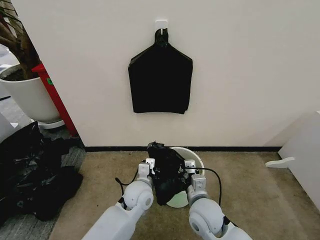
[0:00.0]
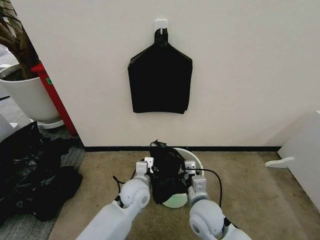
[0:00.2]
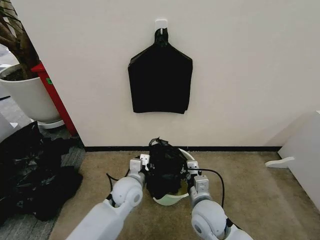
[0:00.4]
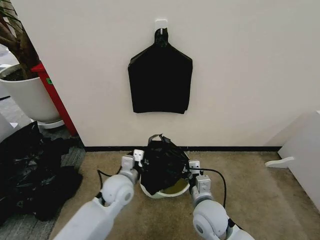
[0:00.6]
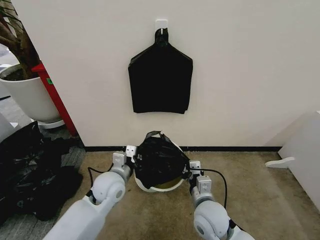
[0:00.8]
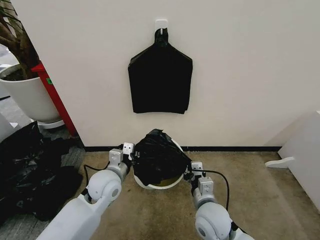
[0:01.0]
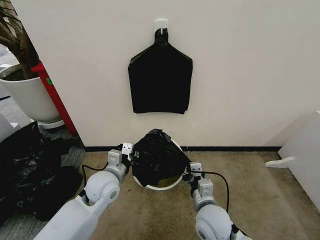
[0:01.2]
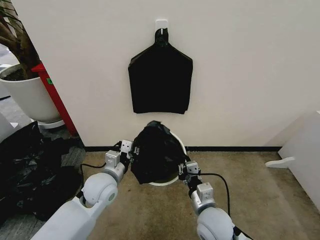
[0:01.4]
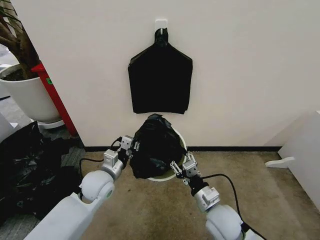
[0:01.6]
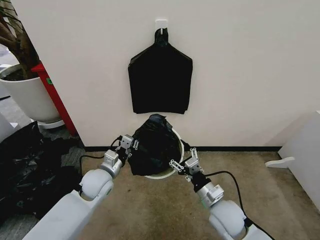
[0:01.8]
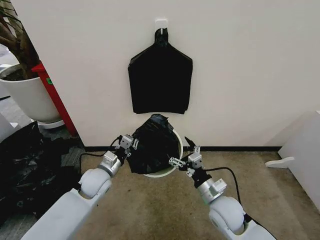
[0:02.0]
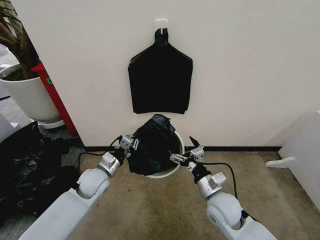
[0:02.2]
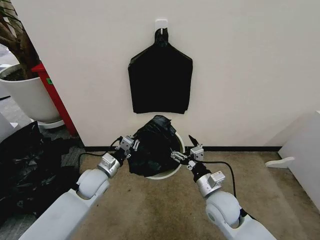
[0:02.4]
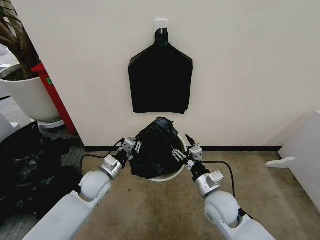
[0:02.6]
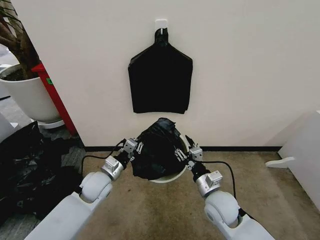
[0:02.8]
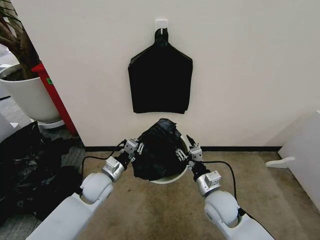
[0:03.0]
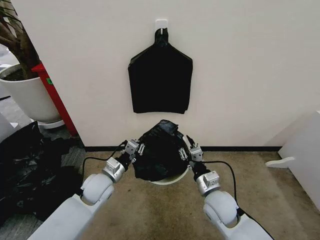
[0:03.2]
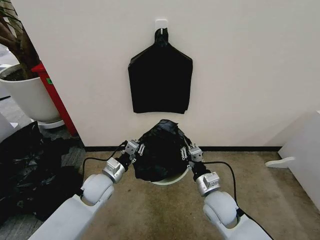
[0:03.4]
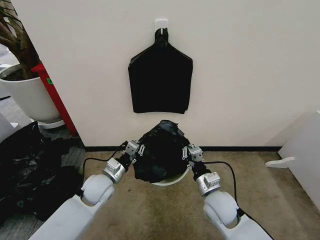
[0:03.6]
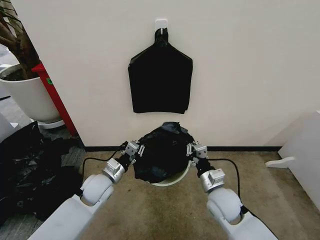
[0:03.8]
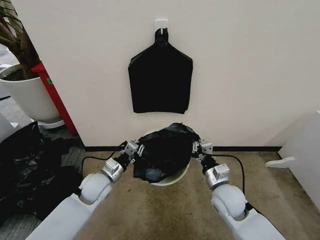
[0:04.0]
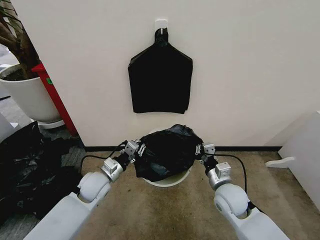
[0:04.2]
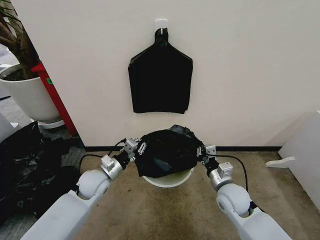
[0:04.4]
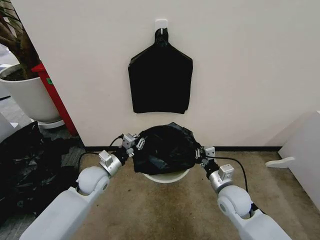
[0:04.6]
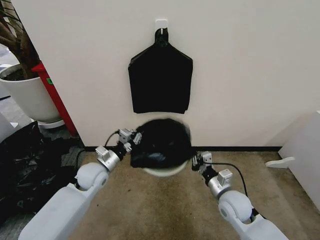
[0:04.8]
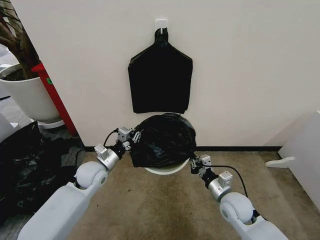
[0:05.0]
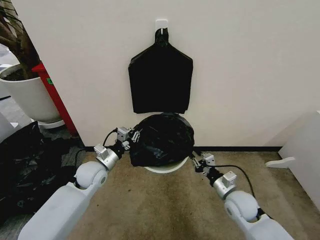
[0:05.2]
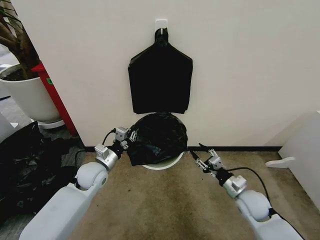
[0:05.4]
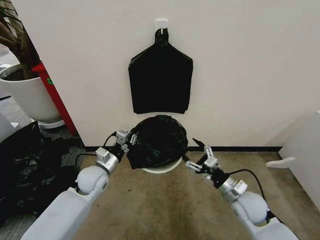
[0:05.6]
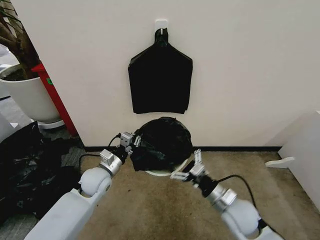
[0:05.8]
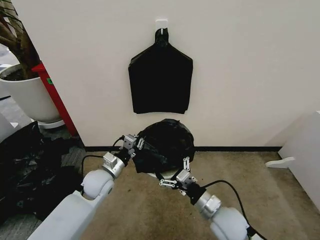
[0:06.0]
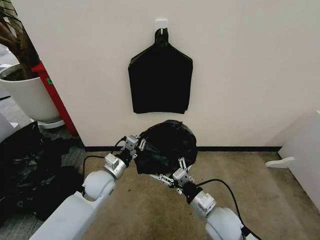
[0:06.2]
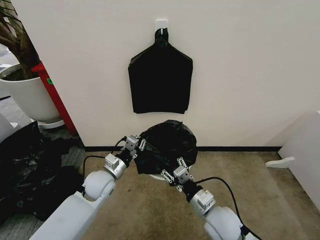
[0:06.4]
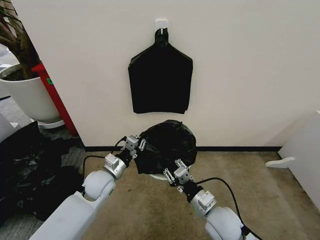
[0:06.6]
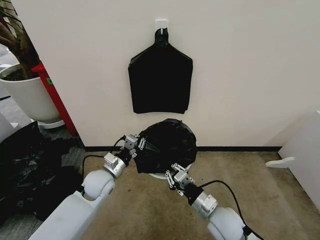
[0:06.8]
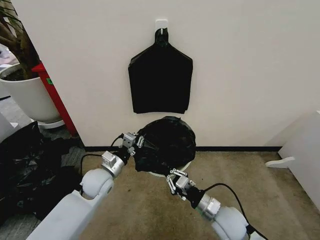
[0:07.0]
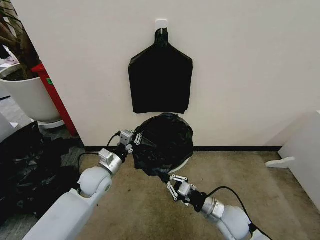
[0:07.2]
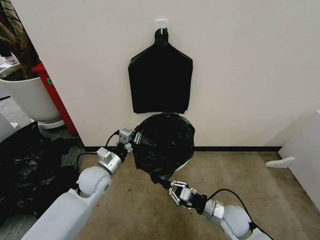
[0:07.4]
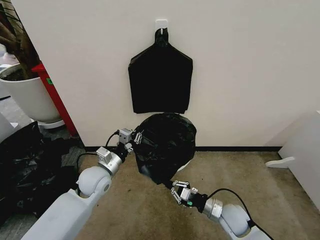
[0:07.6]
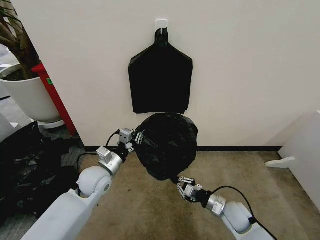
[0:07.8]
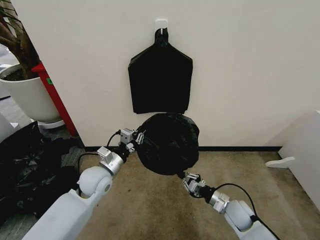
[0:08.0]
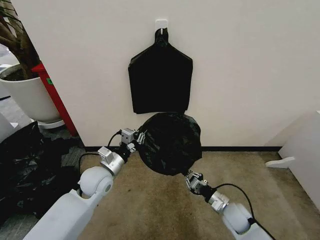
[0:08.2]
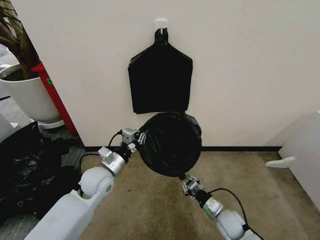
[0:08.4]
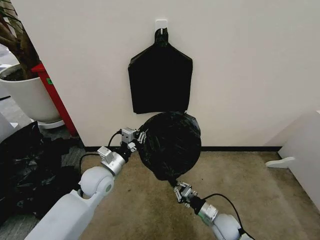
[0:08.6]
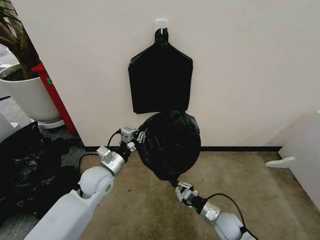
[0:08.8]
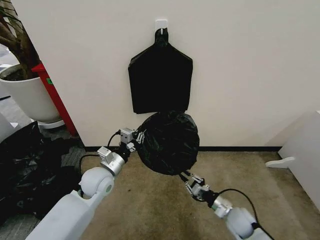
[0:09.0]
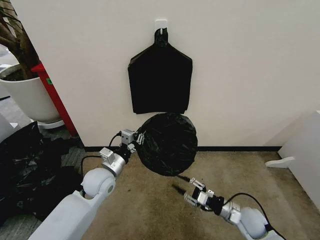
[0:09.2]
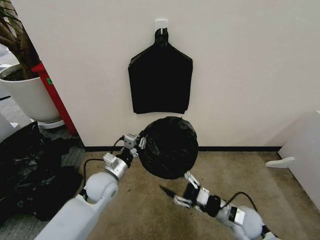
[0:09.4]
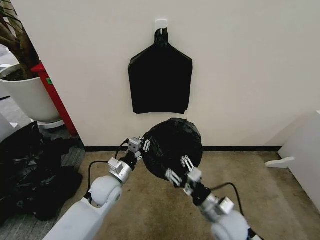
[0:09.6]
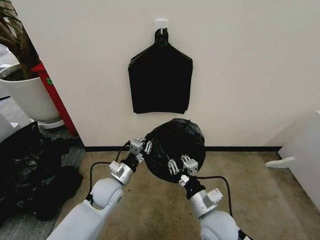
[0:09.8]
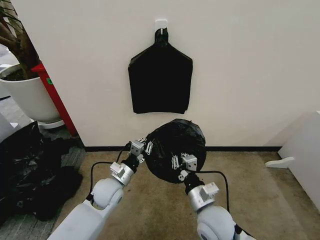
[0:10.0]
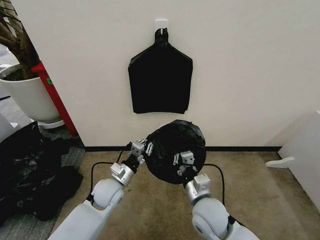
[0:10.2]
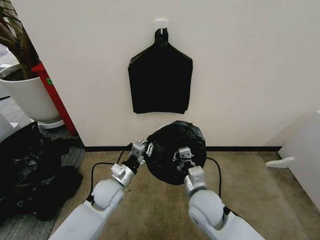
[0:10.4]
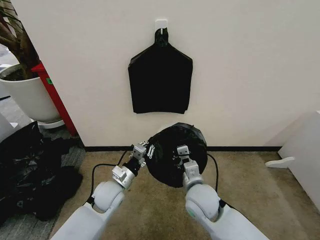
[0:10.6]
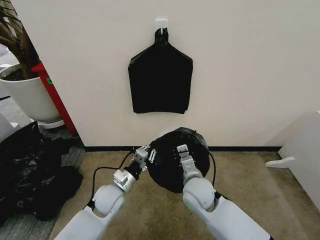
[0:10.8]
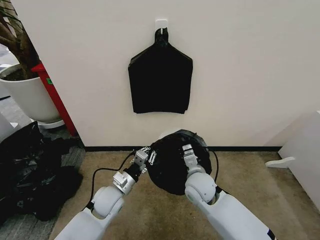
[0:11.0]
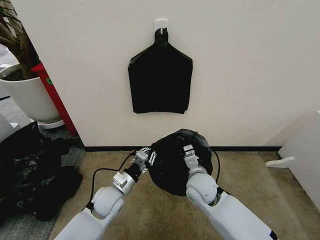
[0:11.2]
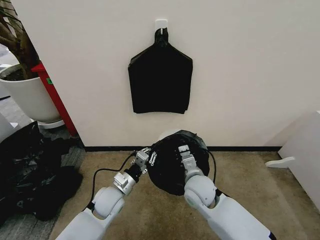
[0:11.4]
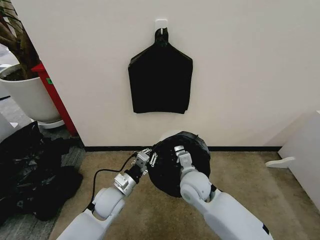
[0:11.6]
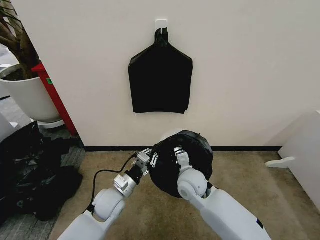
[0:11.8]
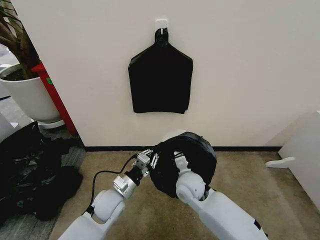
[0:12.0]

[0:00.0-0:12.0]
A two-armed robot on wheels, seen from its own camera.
Task of the whole recording: Place the garbage bag over the trash bin.
0:00.0 to 0:01.6: The right gripper shifts by some 5 cm, and opens. The left gripper goes roughly 15 cm to the left and upward.
0:01.6 to 0:03.0: The right gripper opens, then closes again.
0:03.0 to 0:04.4: The right gripper goes approximately 5 cm to the right, and closes up.
0:04.4 to 0:06.0: The right gripper travels backward by some 5 cm, reaches roughly 10 cm to the right, then returns, and opens up.
0:06.0 to 0:07.6: The right gripper goes roughly 10 cm downward and to the right, and closes.
0:07.6 to 0:09.0: The right gripper changes place by approximately 5 cm.
0:09.0 to 0:10.4: The right gripper is displaced upward and to the left by about 25 cm, and opens, then closes again. The left gripper heads downward, covering roughly 5 cm.
0:10.4 to 0:12.0: The right gripper is displaced forward by about 5 cm.

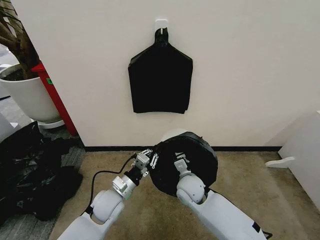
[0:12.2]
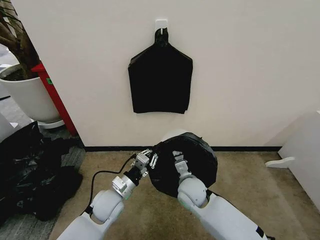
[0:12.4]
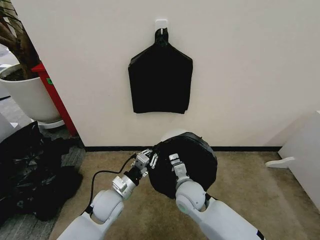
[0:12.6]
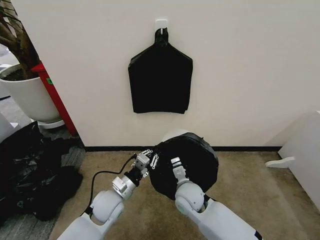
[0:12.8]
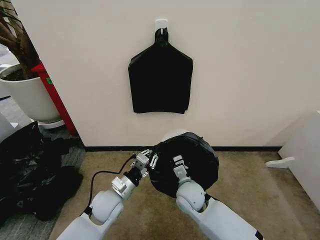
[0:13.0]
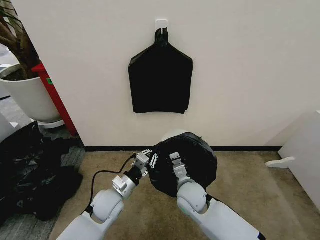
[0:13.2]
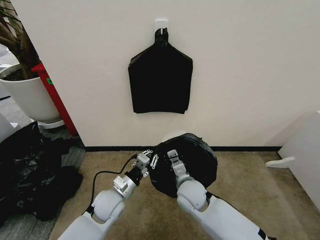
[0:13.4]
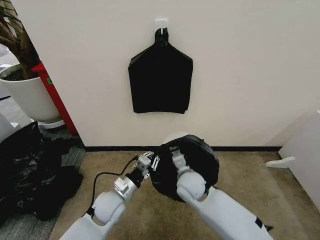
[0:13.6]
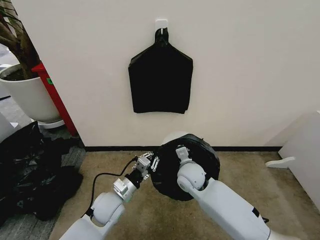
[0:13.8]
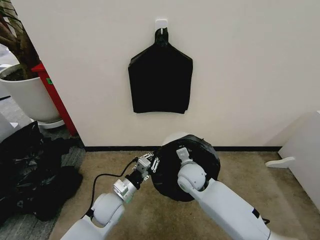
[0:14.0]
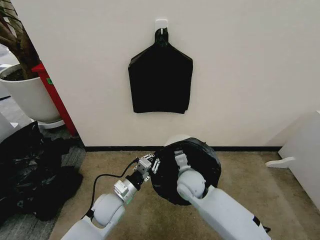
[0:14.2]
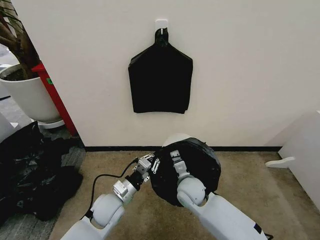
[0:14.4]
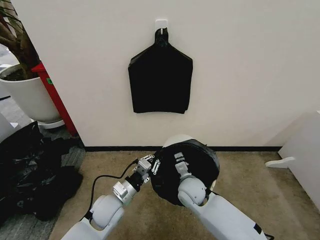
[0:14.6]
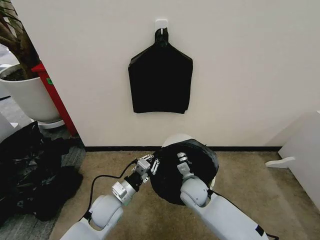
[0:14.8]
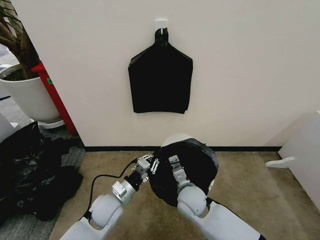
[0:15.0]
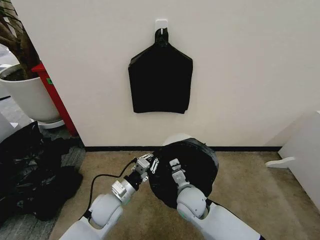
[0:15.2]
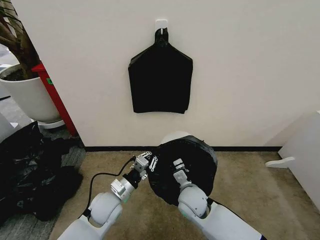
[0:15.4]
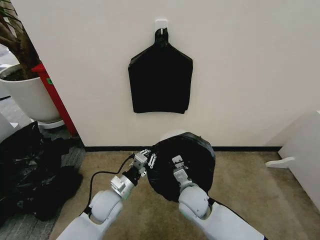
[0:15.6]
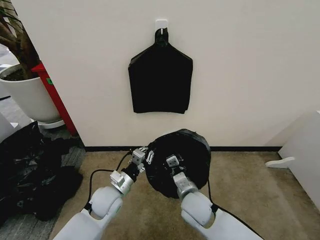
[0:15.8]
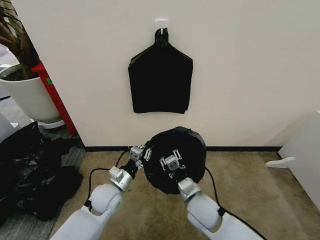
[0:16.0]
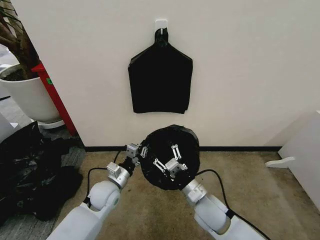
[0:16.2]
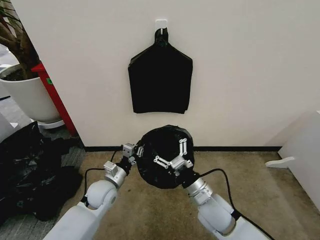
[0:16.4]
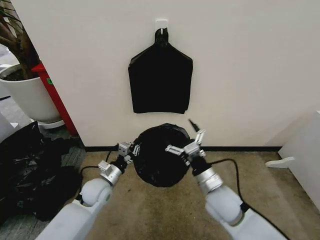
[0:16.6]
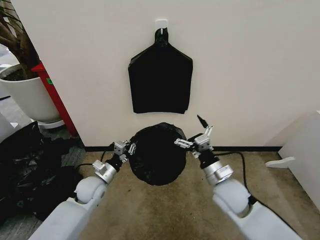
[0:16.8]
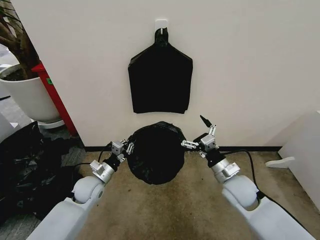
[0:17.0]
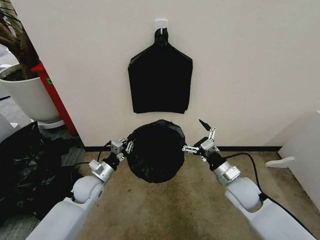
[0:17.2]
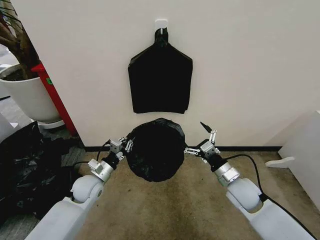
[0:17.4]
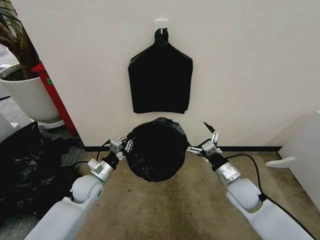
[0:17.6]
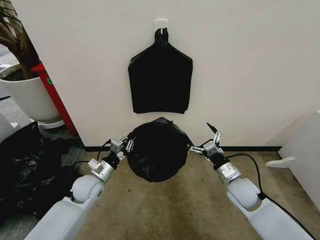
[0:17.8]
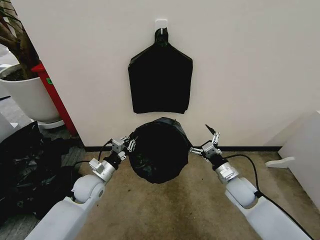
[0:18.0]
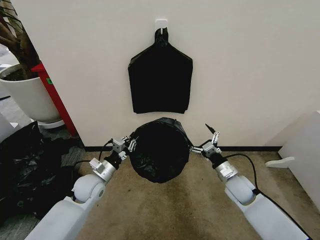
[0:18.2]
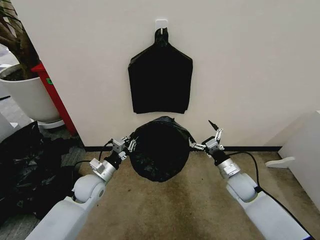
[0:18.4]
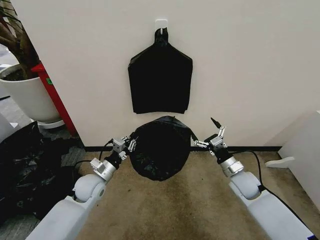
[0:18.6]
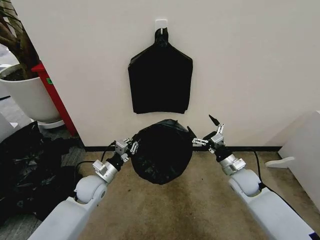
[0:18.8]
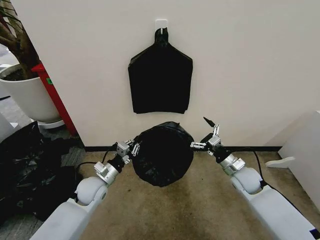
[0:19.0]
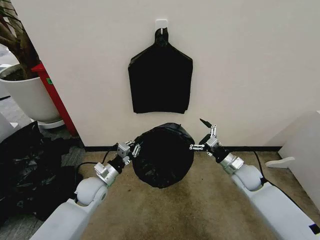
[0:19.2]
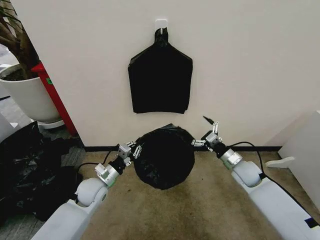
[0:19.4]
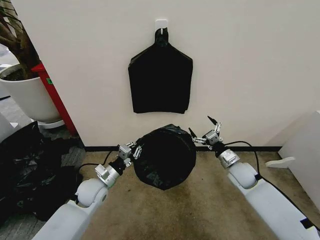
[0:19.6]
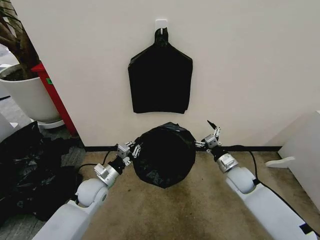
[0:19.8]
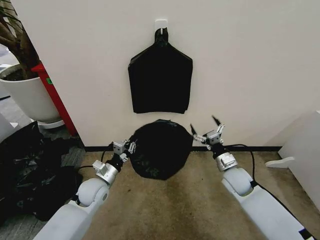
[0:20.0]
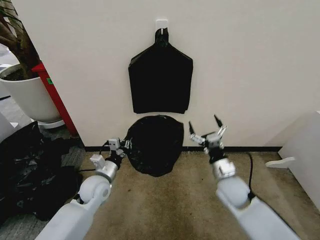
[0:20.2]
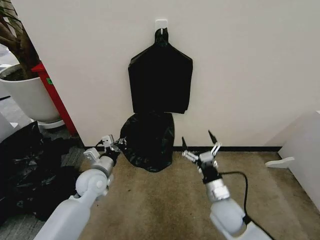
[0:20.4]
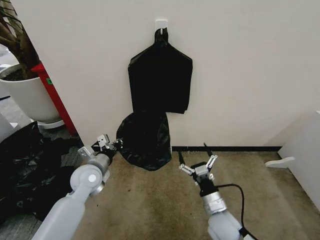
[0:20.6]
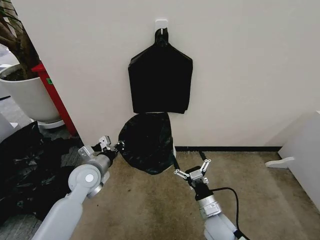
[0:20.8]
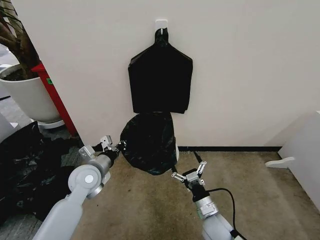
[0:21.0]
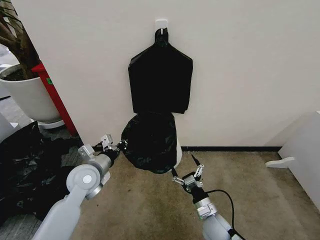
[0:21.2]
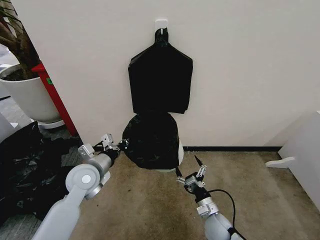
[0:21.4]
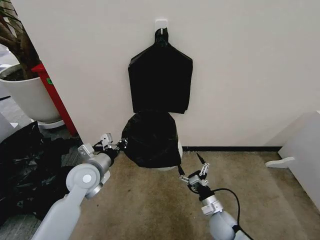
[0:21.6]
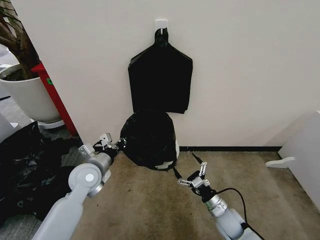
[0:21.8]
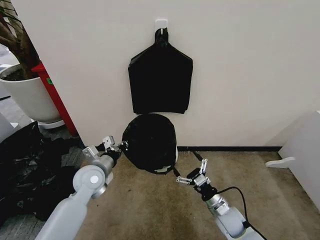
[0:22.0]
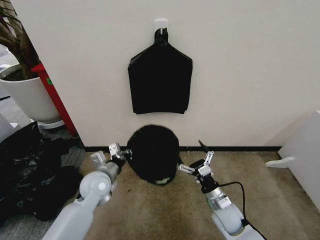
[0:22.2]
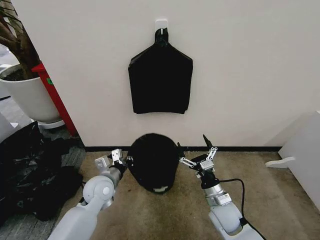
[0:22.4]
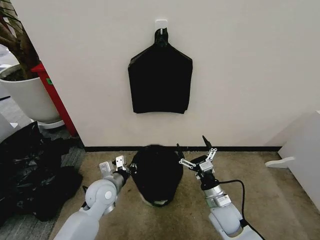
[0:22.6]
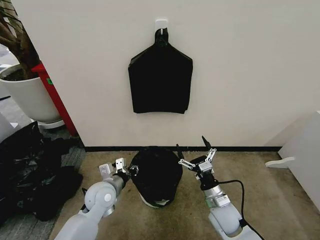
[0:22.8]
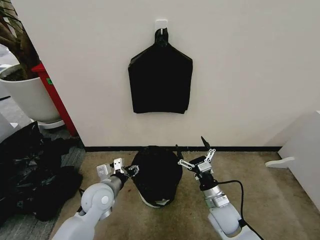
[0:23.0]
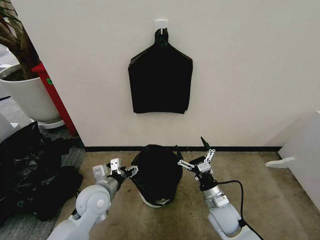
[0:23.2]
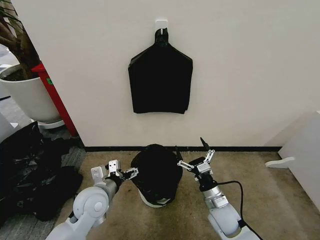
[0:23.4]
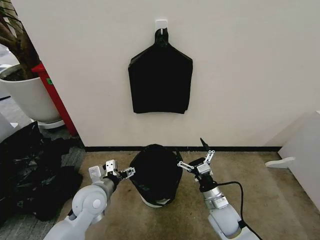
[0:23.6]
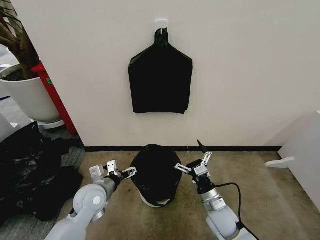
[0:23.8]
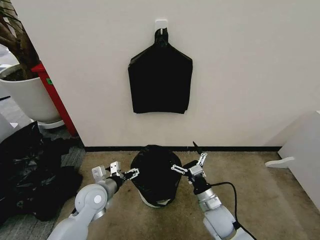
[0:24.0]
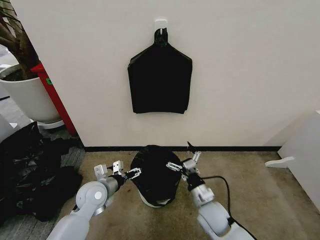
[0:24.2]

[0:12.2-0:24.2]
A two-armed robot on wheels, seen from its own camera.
Task of the whole recording: Place the garbage bag over the trash bin.
0:12.2 to 0:13.8: The grippers stay close to where they were, moving slightly.
0:13.8 to 0:15.2: The right gripper shifts some 5 cm backward.
0:15.2 to 0:16.6: The left gripper shifts roughly 5 cm forward. The right gripper moves to the right and upward, about 10 cm, and opens its fingers.
0:16.6 to 0:18.2: The right gripper heads to the right, forward and downward, covering roughly 15 cm.
0:19.8 to 0:21.2: The left gripper travels upward by some 10 cm; the right gripper moves backward, to the left and downward, approximately 20 cm.
0:21.2 to 0:22.6: The left gripper heads downward, covering some 5 cm. Meanwhile the right gripper heads upward, covering roughly 5 cm.
0:22.6 to 0:24.2: The left gripper opens.
